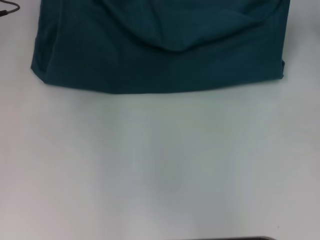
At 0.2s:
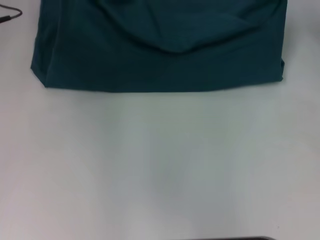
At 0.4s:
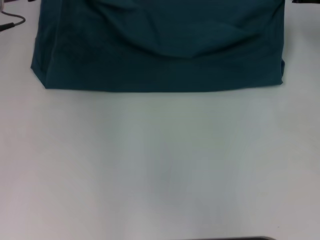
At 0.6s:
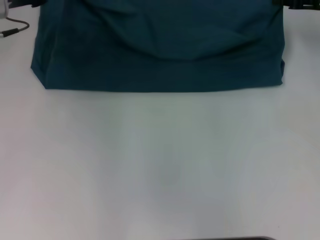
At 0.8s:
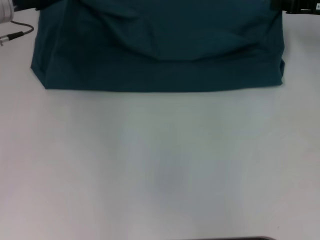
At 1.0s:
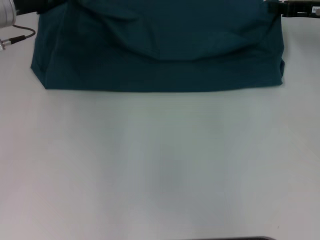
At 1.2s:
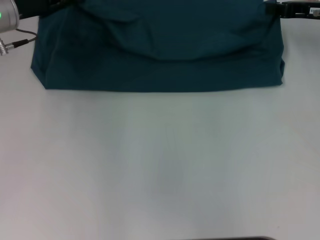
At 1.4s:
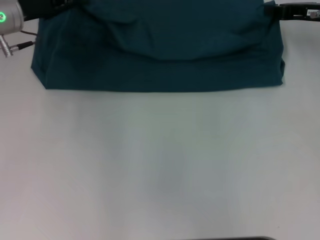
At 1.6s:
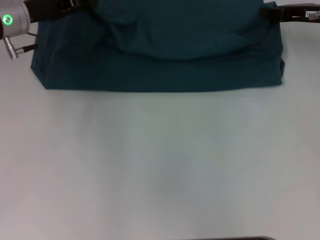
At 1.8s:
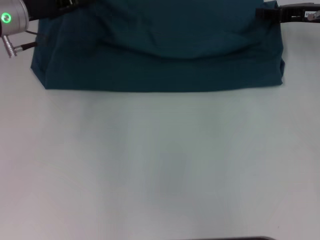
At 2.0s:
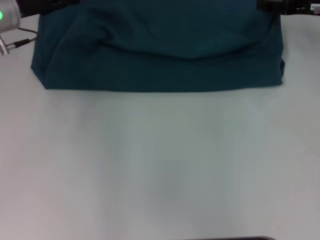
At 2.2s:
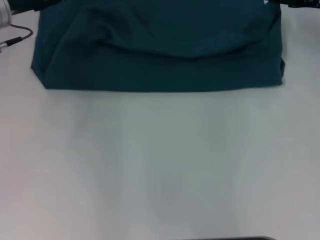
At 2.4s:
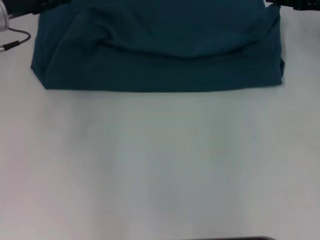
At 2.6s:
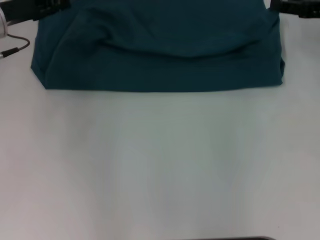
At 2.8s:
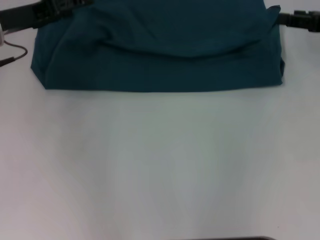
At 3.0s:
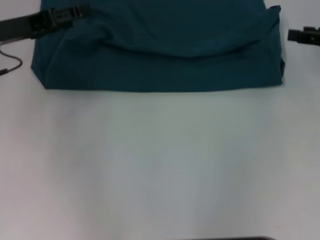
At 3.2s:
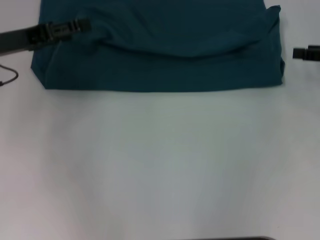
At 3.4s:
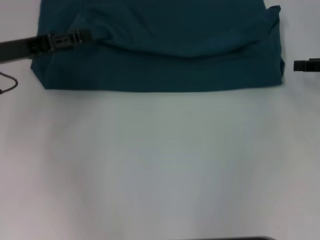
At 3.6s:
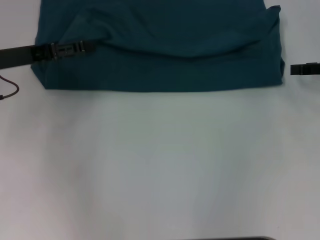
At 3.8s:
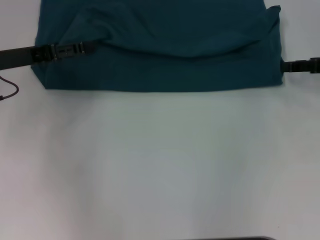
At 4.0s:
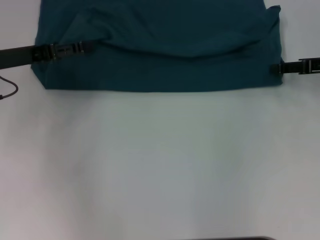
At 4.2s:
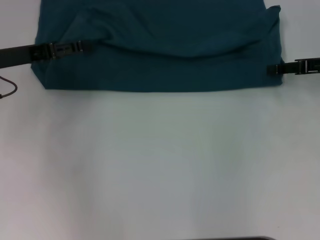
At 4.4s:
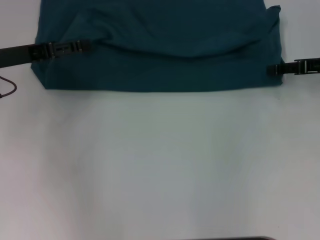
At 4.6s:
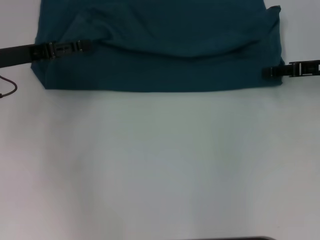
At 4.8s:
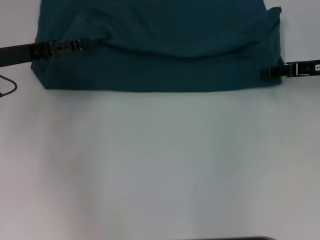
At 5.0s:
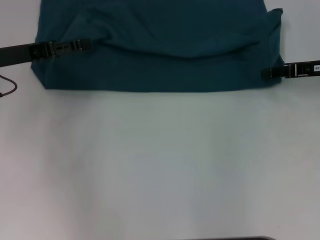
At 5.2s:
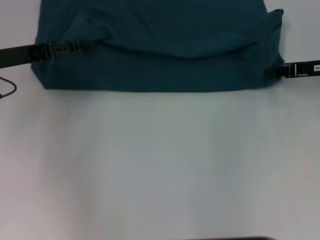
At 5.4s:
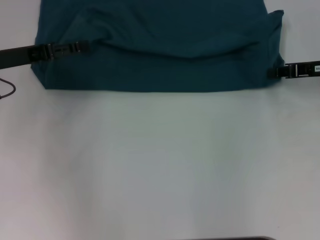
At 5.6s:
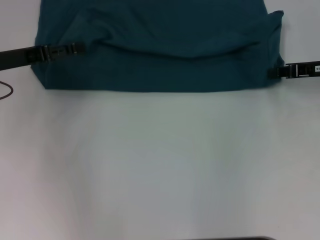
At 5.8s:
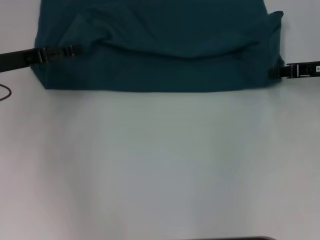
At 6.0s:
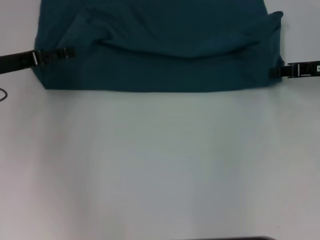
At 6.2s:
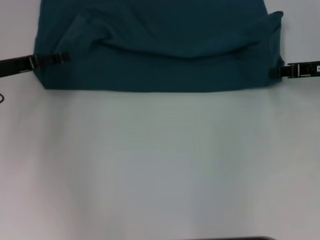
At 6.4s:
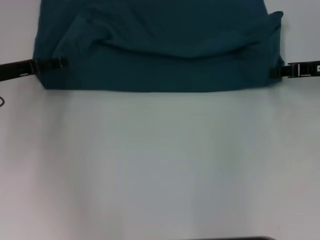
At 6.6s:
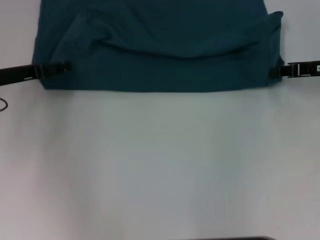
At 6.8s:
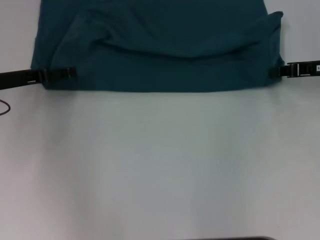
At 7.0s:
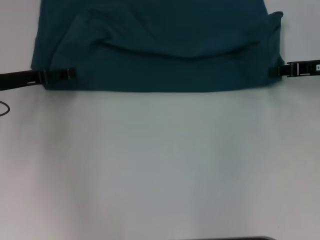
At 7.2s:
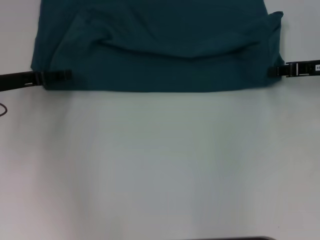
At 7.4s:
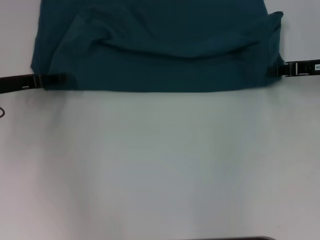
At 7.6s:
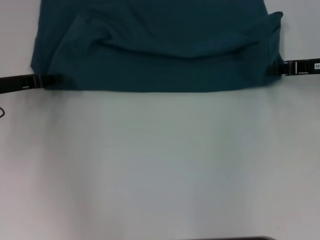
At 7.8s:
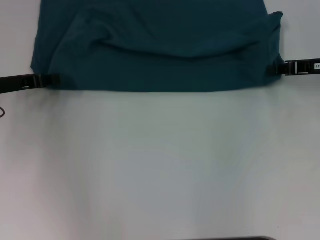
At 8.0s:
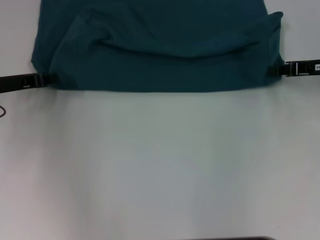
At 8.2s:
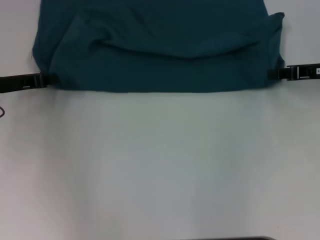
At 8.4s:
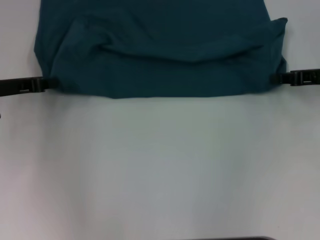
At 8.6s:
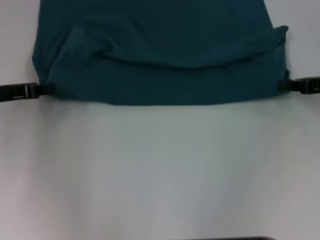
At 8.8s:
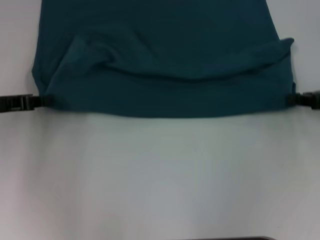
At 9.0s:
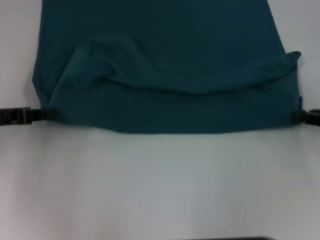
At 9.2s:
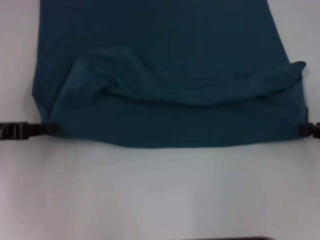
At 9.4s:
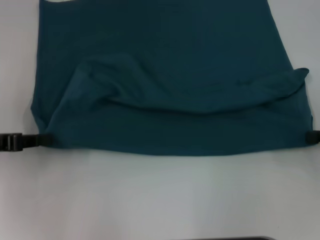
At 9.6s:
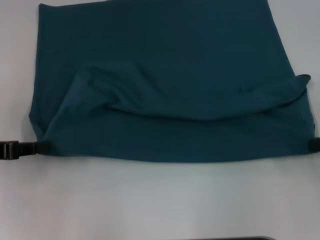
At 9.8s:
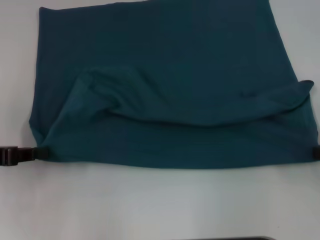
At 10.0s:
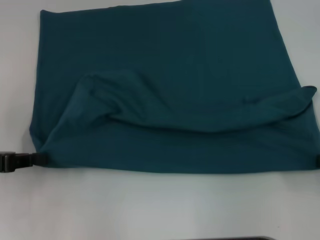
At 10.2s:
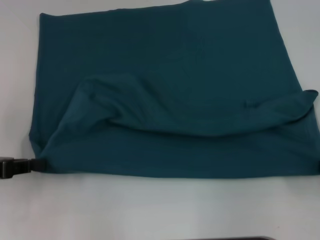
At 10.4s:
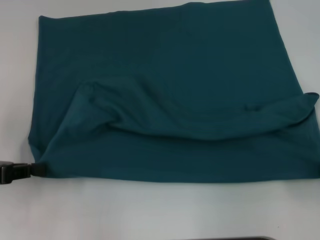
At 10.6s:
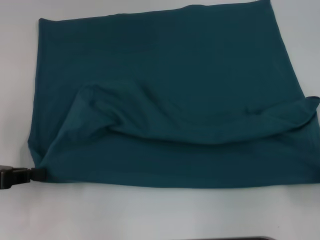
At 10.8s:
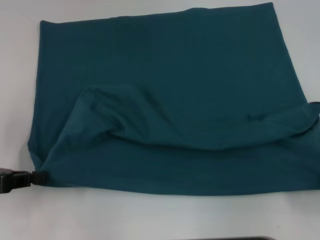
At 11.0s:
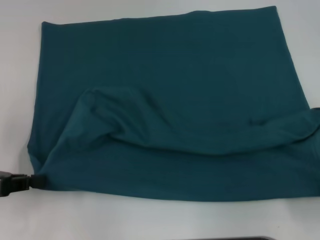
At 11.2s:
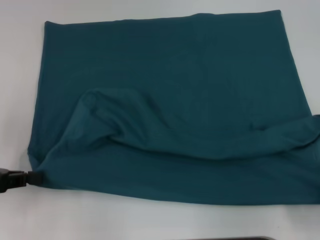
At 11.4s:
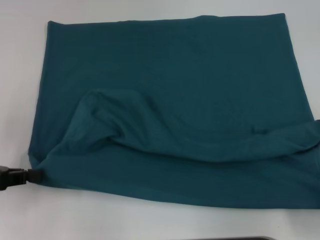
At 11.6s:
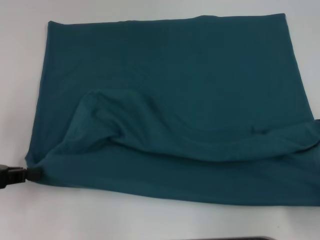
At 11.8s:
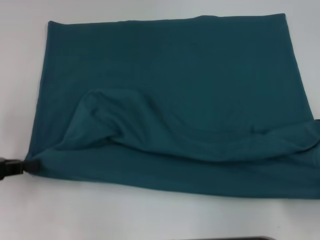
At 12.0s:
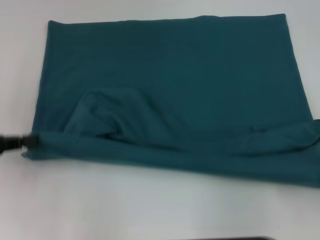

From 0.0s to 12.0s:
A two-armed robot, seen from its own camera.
Step, from 0.0s to 2.6s: Fold the clothes to the left.
Step, from 0.0s to 2.6s: Fold the clothes to the right.
Step, from 2.8s to 11.2s: Pull the clothes with your left hand.
Step, from 2.8s to 11.2s: Pull the clothes with your right hand.
From 0.0s to 1.6s: The left gripper ends up about 5 cm from where it was.
From 1.6s to 3.0s: The right gripper is displaced backward and to the right by some 10 cm, and opens, while the left gripper goes roughly 5 cm backward, and opens its fingers.
From 3.0s to 4.4s: The grippers make only small movements.
From 4.4s to 6.0s: The right gripper closes.
From 6.0s to 7.6s: The grippers stay close to where they were, moving slightly.
From 7.6s to 9.0s: The left gripper is displaced backward by some 5 cm, and closes its fingers; the right gripper shifts about 10 cm backward.
From 9.0s to 10.4s: The two grippers go about 10 cm backward.
From 10.4s to 12.0s: There are only small adjustments of the grippers.

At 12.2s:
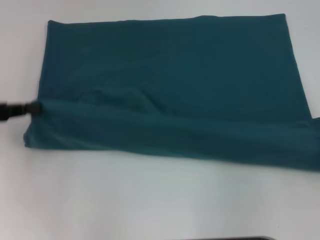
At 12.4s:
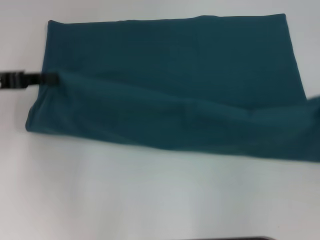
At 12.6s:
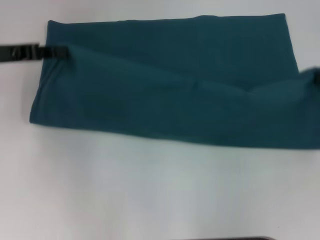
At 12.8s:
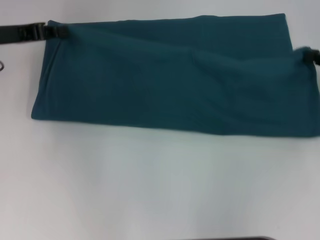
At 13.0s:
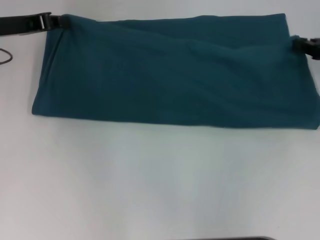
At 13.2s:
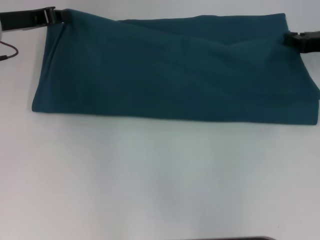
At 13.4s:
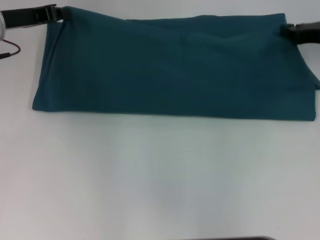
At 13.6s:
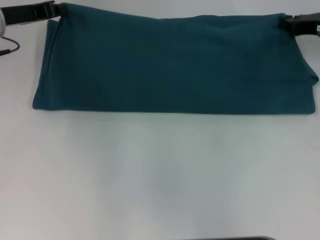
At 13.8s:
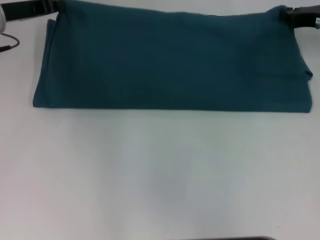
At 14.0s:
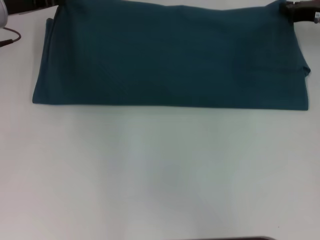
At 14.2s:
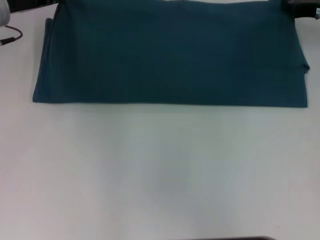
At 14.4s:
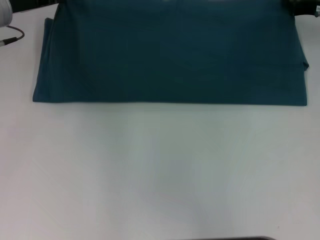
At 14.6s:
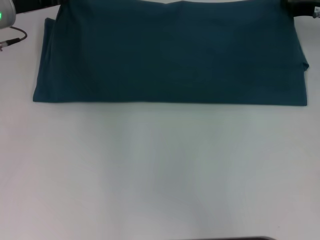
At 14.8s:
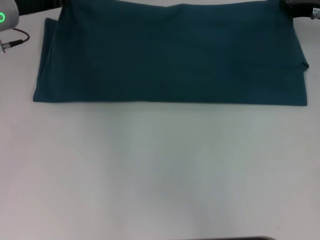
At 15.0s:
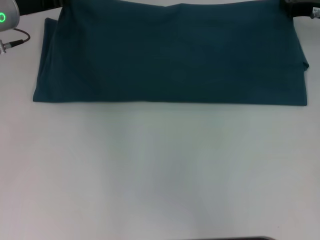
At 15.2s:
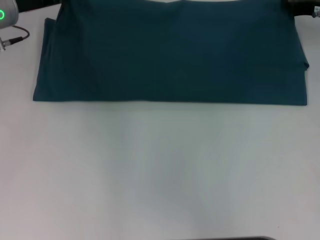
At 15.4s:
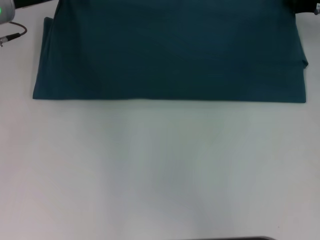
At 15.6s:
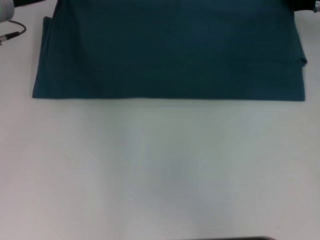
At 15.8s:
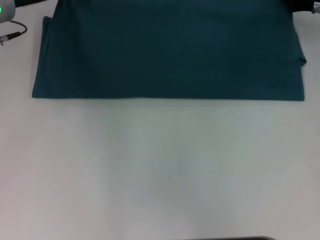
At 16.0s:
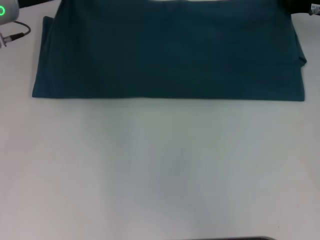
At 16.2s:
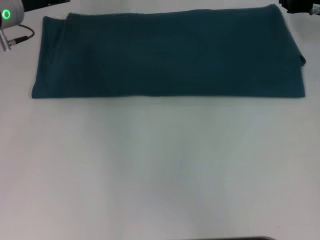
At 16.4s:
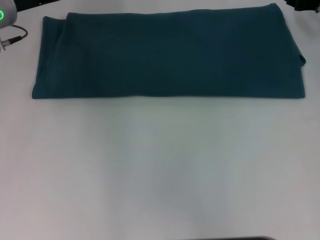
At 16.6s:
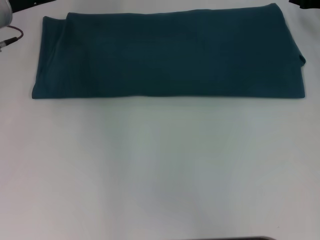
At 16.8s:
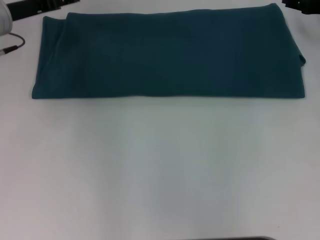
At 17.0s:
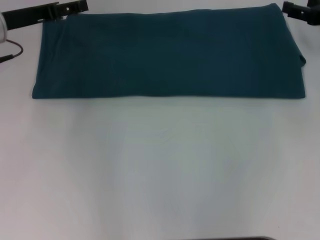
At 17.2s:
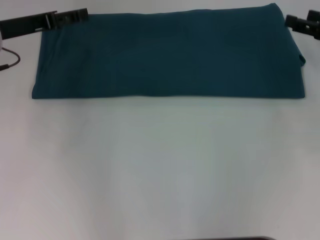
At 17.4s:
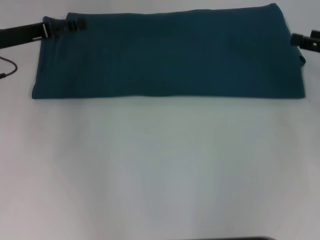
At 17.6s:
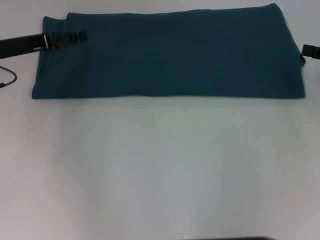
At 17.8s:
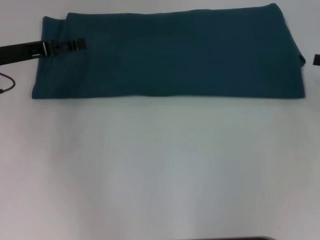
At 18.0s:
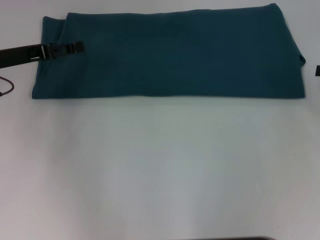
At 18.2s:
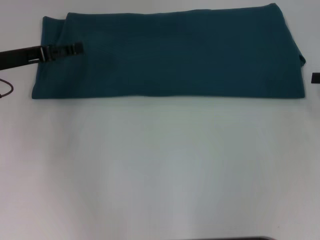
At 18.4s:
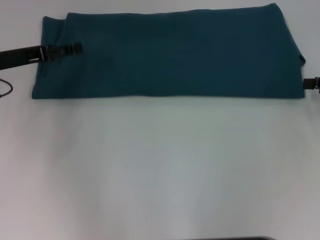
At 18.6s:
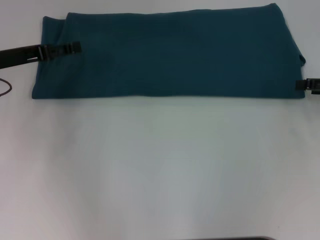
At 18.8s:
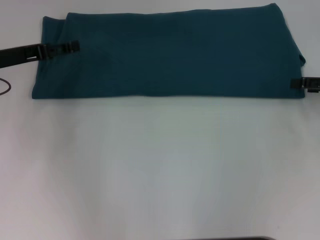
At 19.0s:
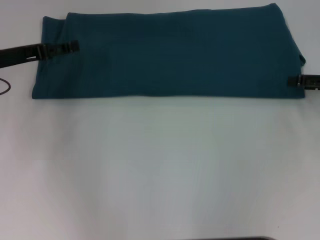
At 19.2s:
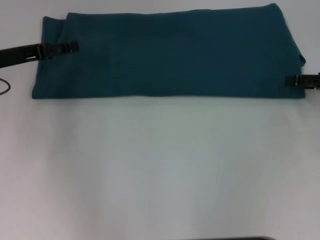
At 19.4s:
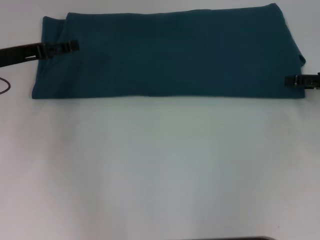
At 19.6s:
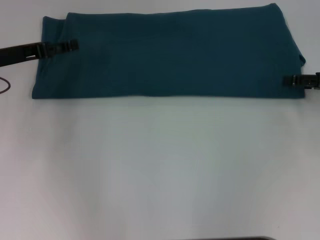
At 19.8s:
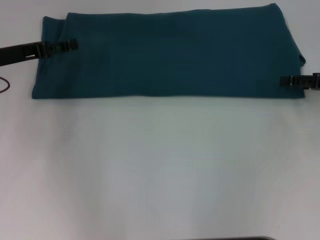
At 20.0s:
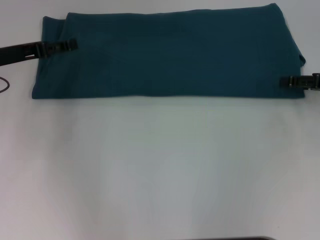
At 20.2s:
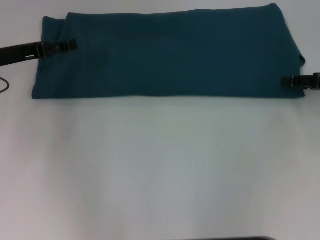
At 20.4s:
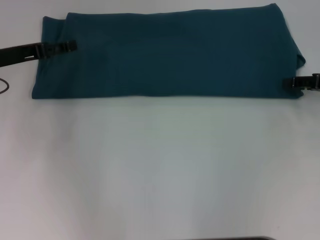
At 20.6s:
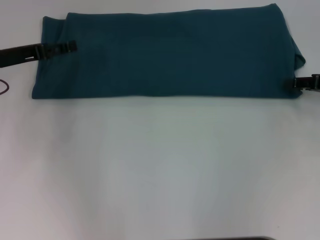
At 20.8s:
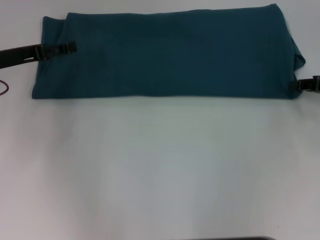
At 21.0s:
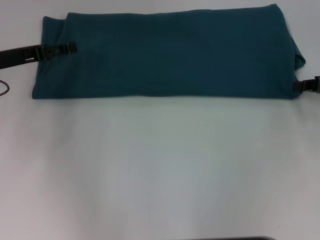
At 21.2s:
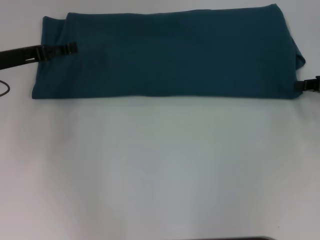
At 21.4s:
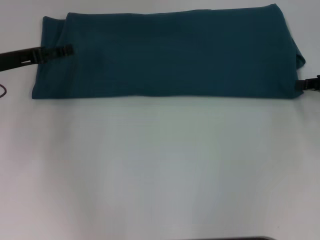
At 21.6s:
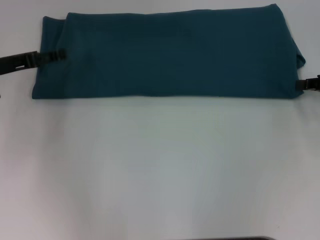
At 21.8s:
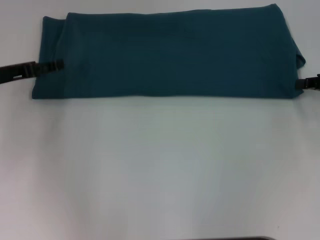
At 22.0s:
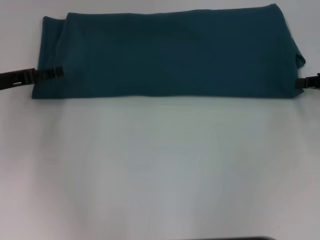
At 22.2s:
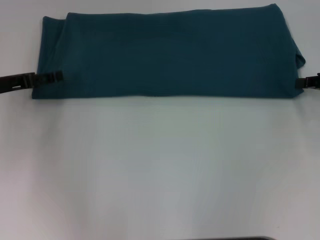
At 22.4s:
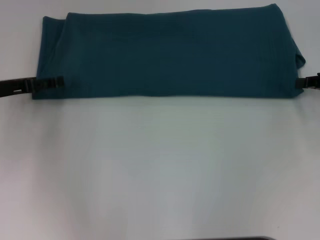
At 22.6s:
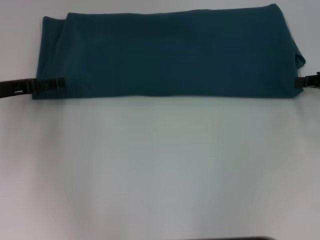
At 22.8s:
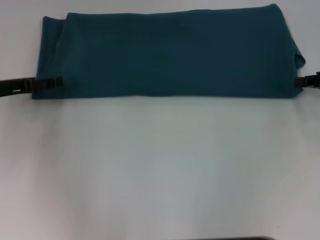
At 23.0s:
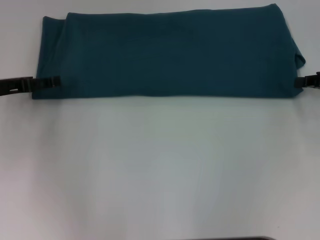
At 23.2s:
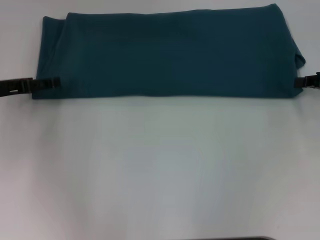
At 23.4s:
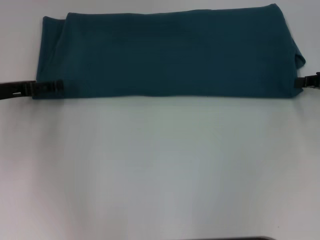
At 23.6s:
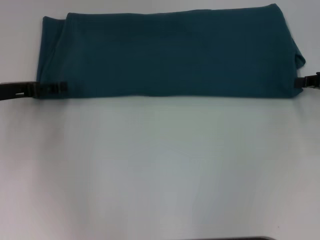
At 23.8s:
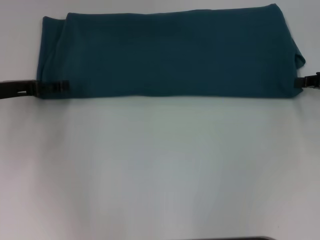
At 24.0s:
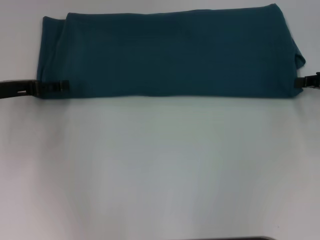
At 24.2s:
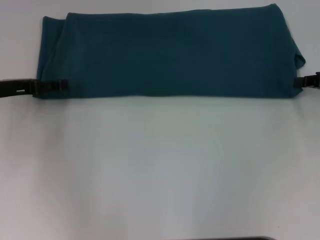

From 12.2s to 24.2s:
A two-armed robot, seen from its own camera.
Step, from 12.2s to 16.2s: Fold the clothes to the left.
Step, from 12.2s to 16.2s: Fold the clothes to the right.
From 12.2s to 13.8s: The right gripper moves forward and to the left, roughly 25 cm. The left gripper goes about 15 cm forward and to the right.
From 13.8s to 15.2s: The grippers make only small movements.
From 15.2s to 16.6s: The left gripper opens up.
From 16.6s to 18.2s: The left gripper heads backward, covering some 5 cm, and opens its fingers. Meanwhile the right gripper travels backward and to the right by about 15 cm, and opens its fingers.
From 21.2s to 22.6s: The grippers make only small movements.
From 22.6s to 24.2s: Both grippers stay about where they are.
